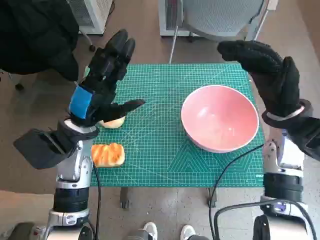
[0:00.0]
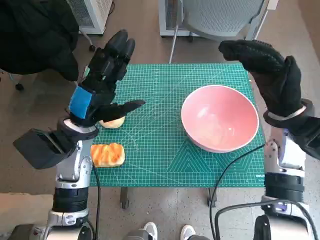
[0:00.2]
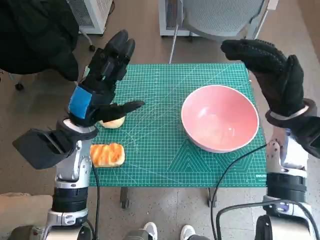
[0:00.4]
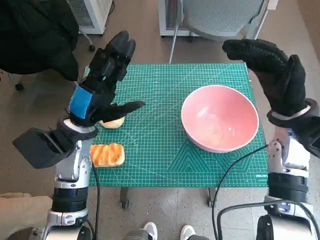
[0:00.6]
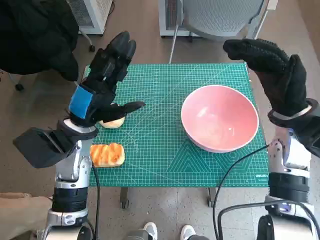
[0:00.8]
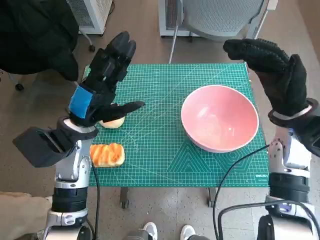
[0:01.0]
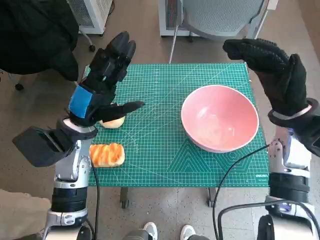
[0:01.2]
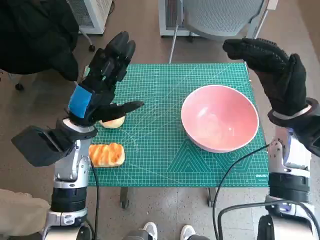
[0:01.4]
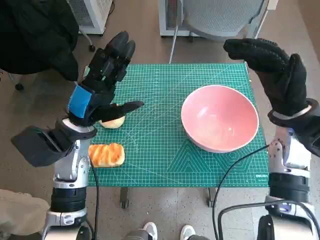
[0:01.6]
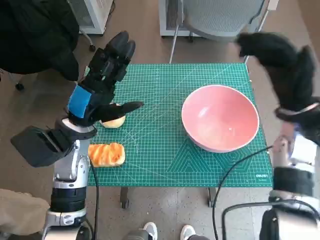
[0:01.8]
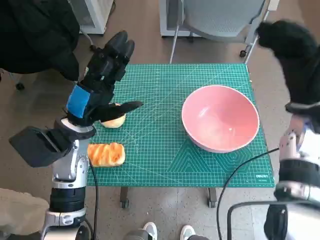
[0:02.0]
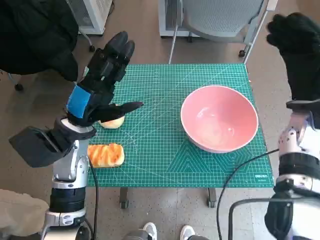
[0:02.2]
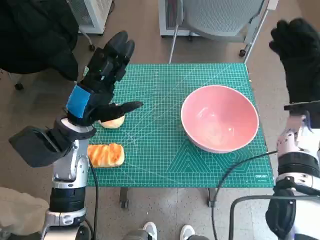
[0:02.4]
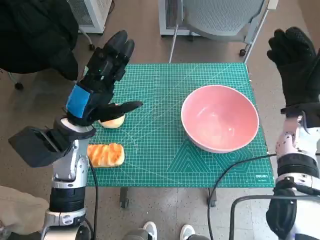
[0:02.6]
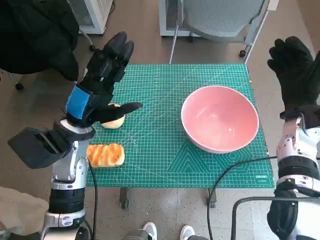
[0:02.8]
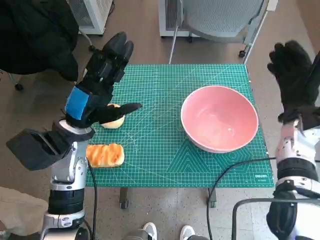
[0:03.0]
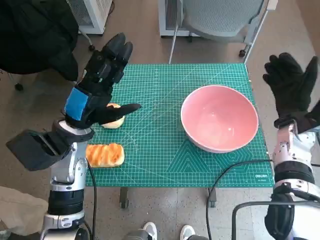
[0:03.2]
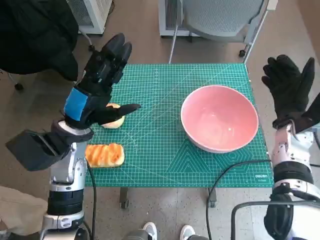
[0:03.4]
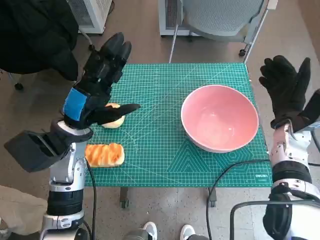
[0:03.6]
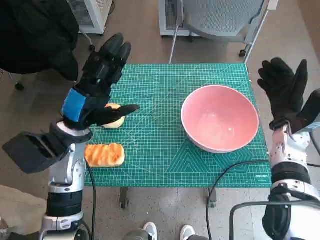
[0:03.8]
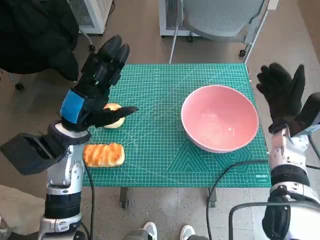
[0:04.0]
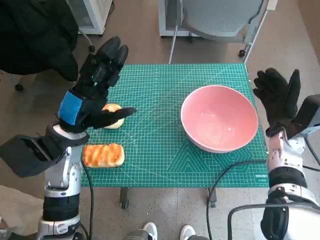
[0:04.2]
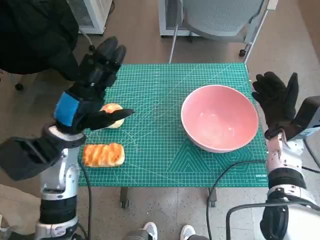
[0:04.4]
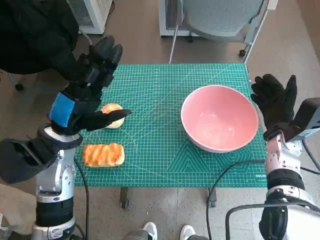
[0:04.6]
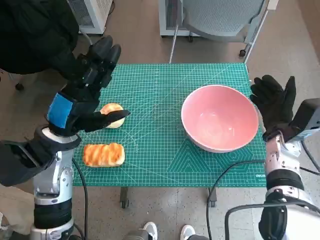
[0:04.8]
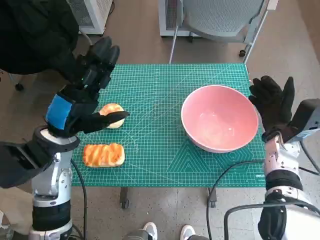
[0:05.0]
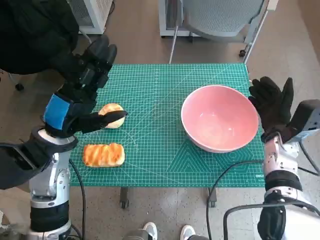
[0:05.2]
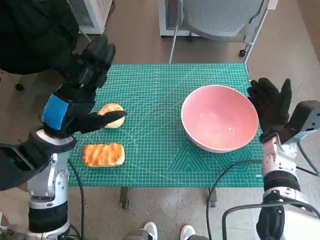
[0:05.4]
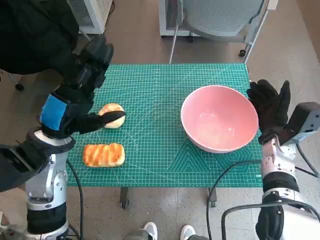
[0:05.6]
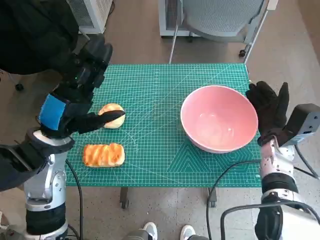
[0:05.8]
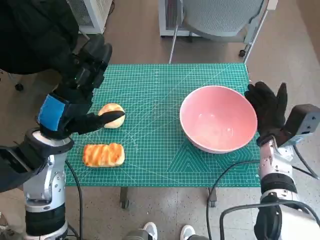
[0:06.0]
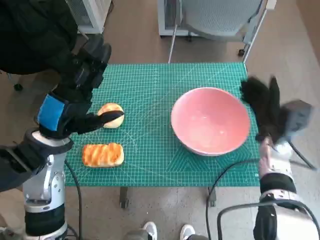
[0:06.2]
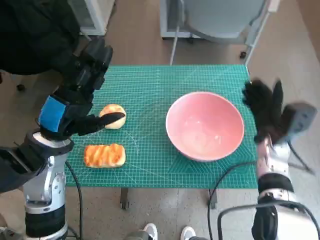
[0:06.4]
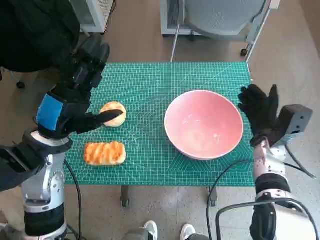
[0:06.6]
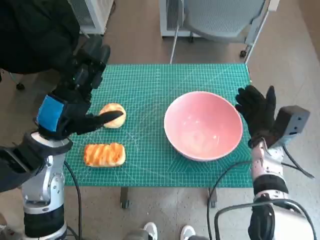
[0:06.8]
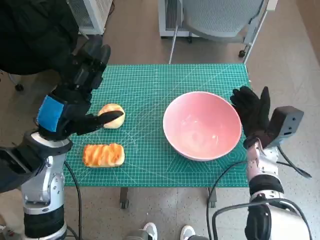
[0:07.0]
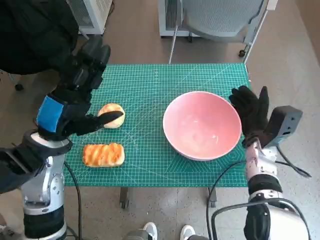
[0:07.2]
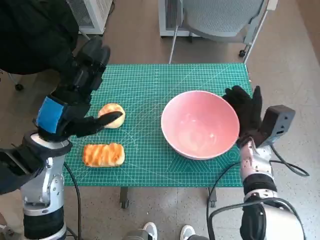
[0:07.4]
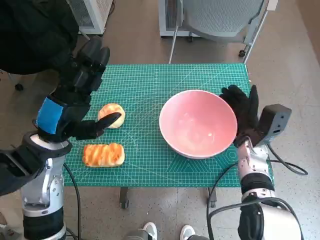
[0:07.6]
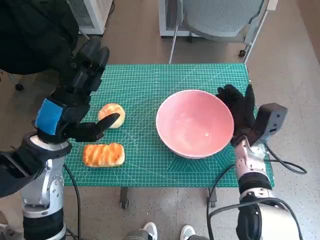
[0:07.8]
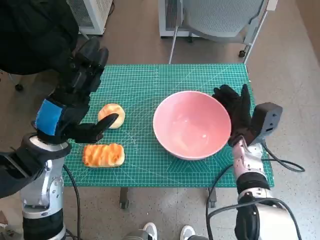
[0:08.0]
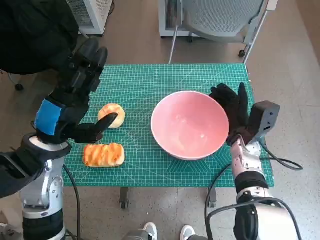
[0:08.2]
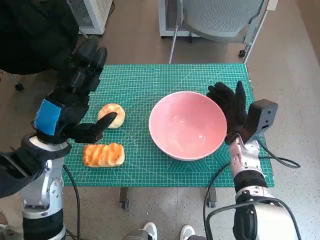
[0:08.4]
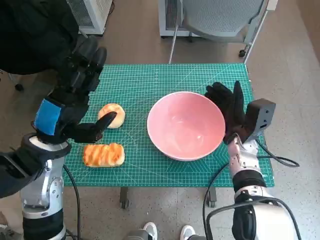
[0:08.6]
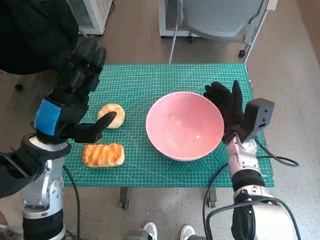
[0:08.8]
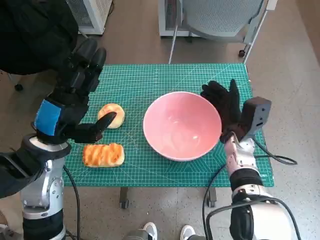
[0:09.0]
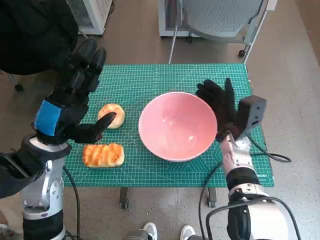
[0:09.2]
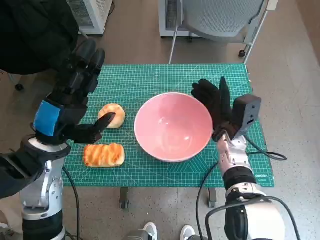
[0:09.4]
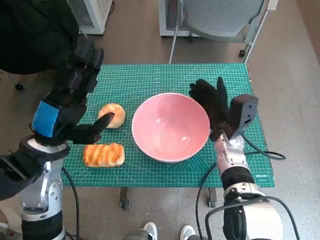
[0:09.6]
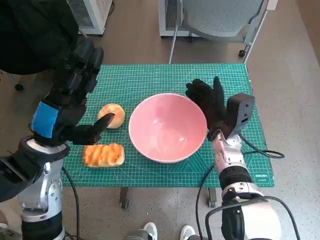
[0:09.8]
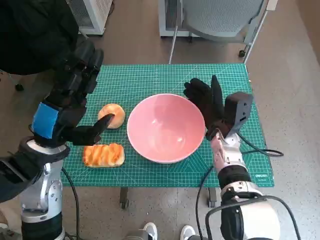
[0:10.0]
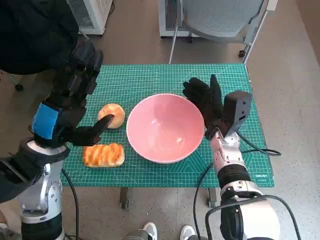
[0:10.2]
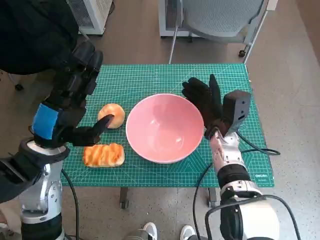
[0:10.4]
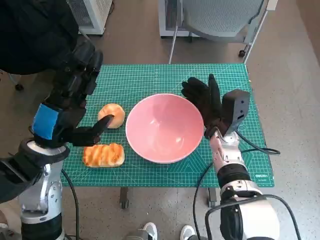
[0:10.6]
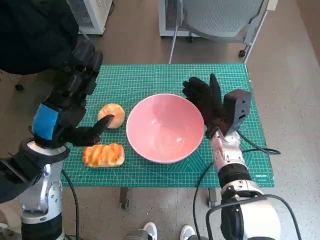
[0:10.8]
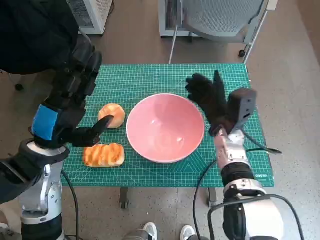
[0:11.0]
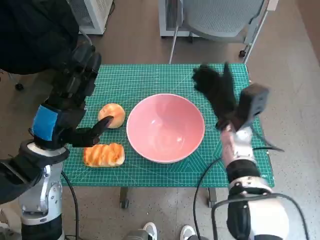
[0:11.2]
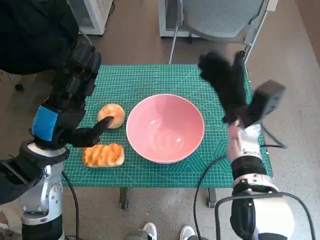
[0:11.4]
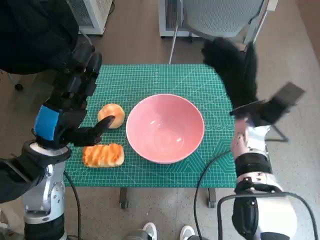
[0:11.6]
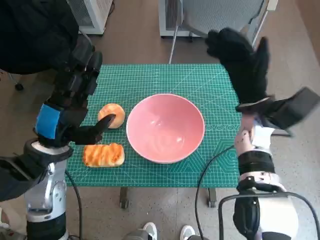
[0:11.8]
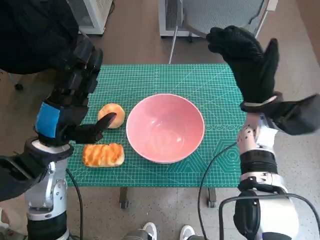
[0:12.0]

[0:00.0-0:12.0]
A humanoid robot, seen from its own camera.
Step, 0:00.0 to 0:11.0: Move the pink bowl to the center of table with right hand.
0:01.6 to 0:03.0: The right hand heads downward, covering roughly 5 cm.
0:04.4 to 0:06.0: There are only small adjustments of the hands.
0:07.6 to 0:09.0: There are only small adjustments of the hands.
0:10.4 to 0:12.0: The right hand goes about 10 cm upward and to the right.

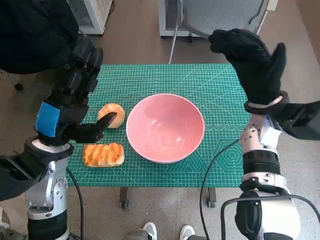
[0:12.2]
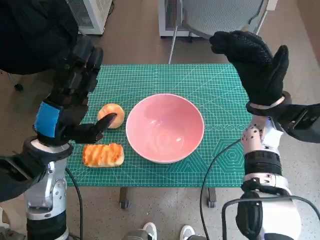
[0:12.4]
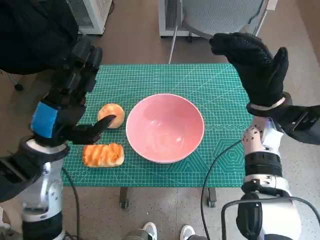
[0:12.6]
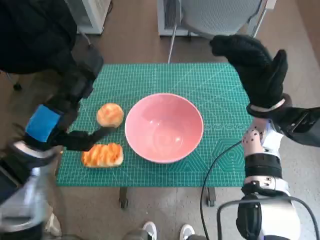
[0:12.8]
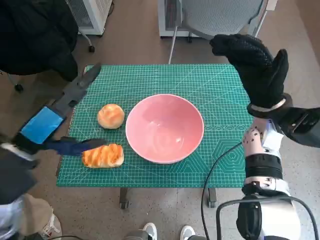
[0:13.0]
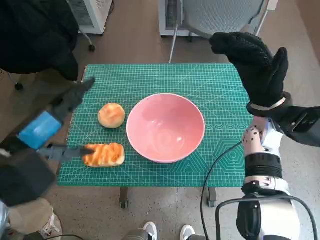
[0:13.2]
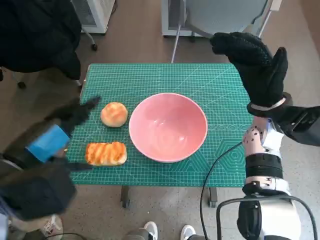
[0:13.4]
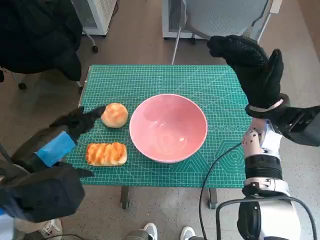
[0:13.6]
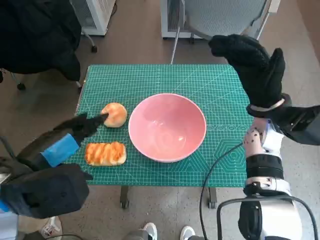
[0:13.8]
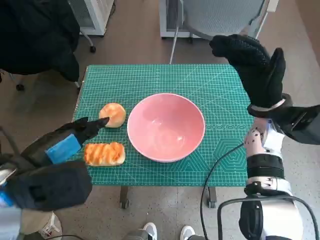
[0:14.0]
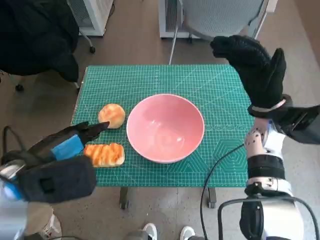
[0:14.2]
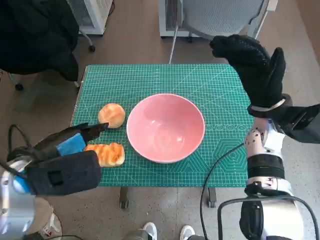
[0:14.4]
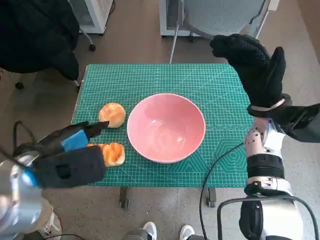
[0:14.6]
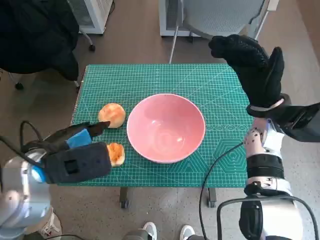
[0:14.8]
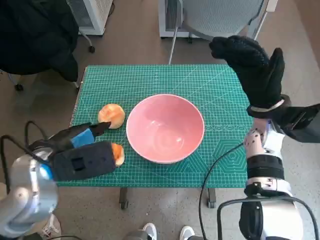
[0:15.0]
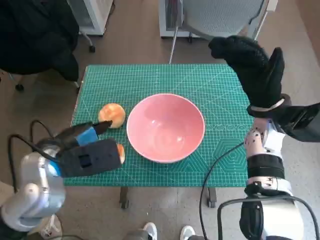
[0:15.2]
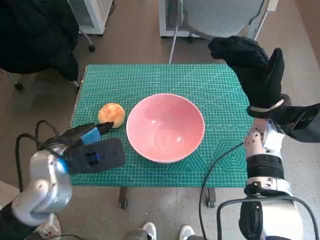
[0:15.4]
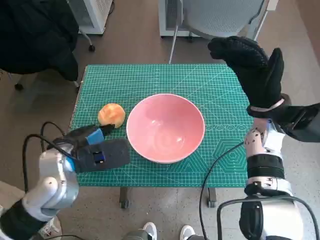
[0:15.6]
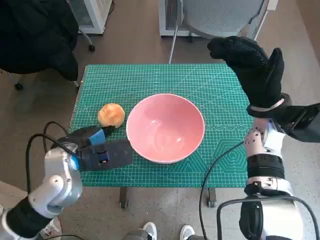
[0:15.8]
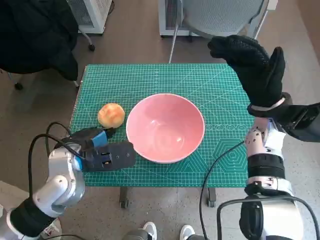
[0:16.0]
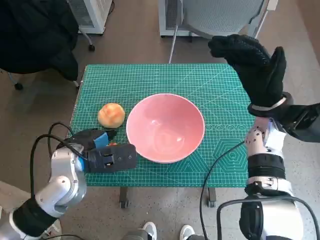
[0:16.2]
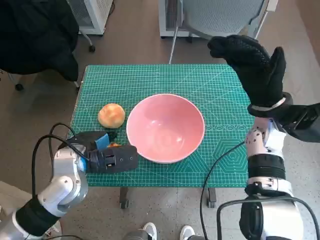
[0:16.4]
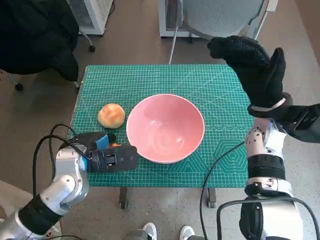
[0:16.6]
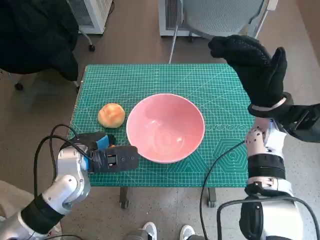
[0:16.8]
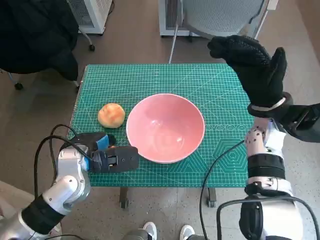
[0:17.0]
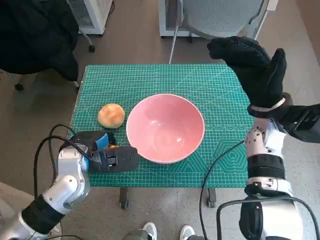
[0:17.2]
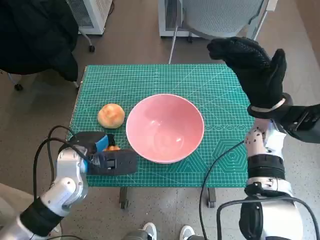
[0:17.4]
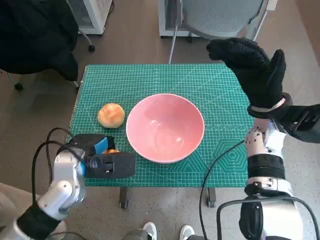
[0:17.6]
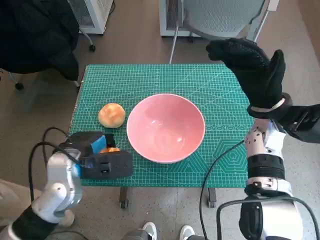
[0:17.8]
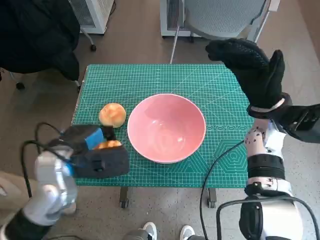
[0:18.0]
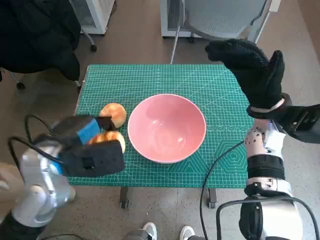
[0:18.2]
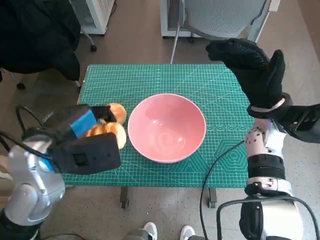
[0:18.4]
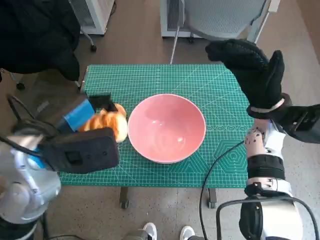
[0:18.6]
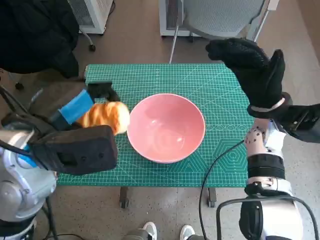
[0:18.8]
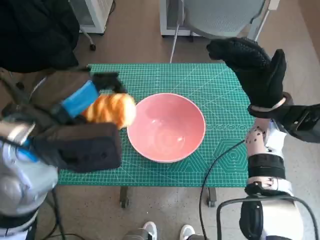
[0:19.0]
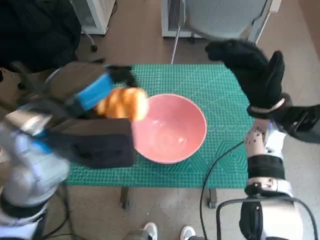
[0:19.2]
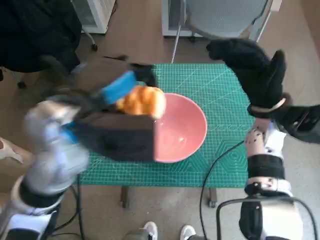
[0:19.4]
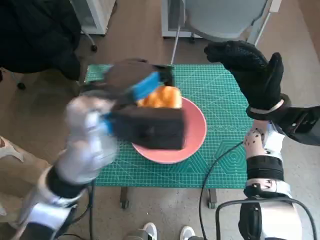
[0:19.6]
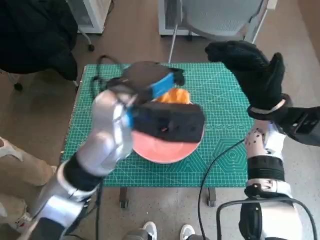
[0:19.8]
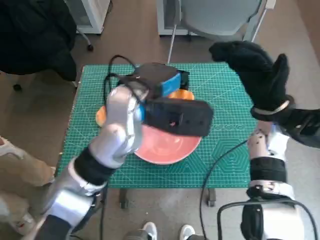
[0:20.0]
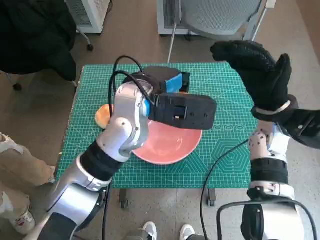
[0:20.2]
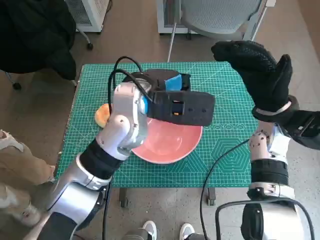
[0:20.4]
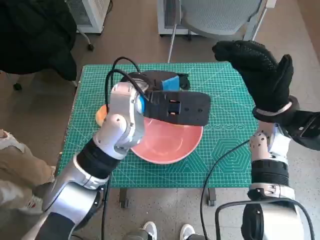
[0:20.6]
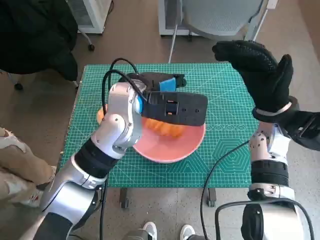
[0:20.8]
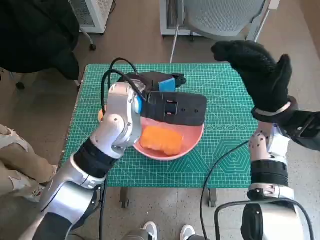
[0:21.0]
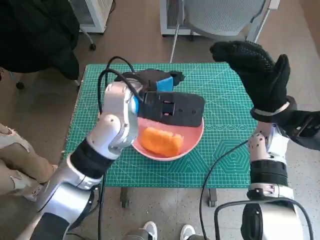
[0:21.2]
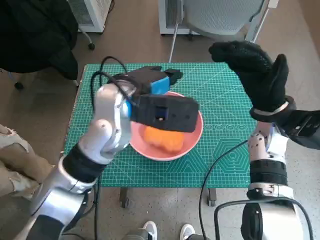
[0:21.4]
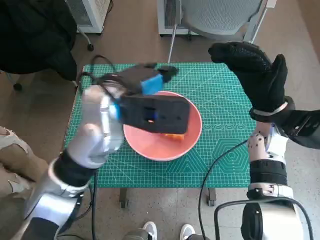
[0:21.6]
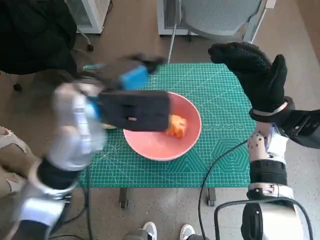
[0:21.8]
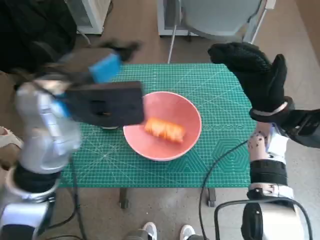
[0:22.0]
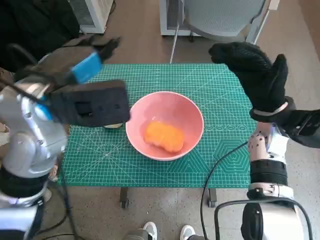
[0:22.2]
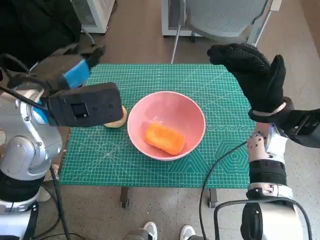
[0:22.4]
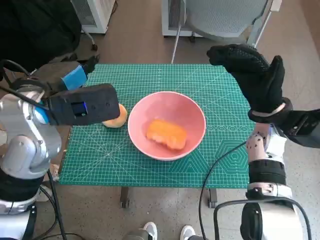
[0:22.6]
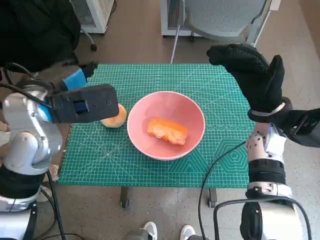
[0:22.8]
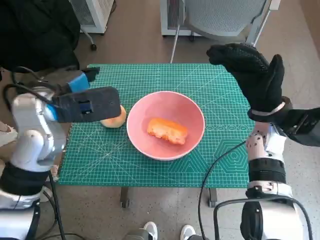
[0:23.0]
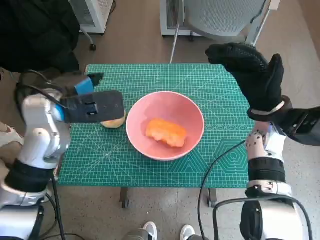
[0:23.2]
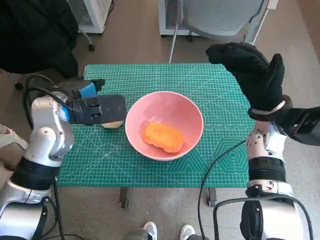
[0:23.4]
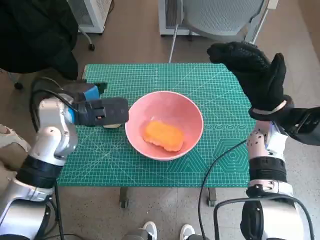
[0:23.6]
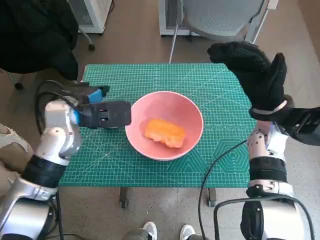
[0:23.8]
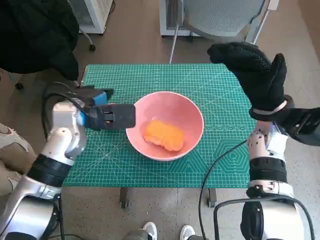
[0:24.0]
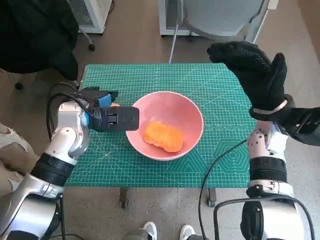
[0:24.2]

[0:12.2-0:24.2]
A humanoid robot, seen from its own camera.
Step, 0:12.2 to 0:17.4: Grasp the long bread with left hand.
Step, 0:17.6 to 0:21.0: Place the long bread in pink bowl with left hand.
0:12.2 to 0:13.8: The left hand is displaced backward and upward by some 10 cm.
0:13.8 to 0:15.2: The left hand moves forward, approximately 5 cm.
0:15.2 to 0:16.6: The left hand goes about 5 cm downward.
0:16.6 to 0:18.2: The left hand travels upward by some 5 cm.
0:18.2 to 0:19.8: The left hand shifts about 15 cm to the right, upward and forward.
0:21.2 to 0:22.6: The left hand heads to the left, covering about 10 cm.
0:22.6 to 0:24.2: The left hand heads downward and forward, covering about 10 cm.
